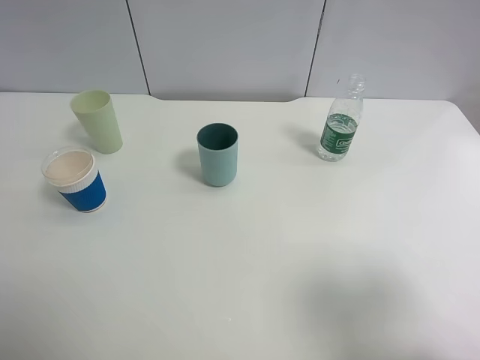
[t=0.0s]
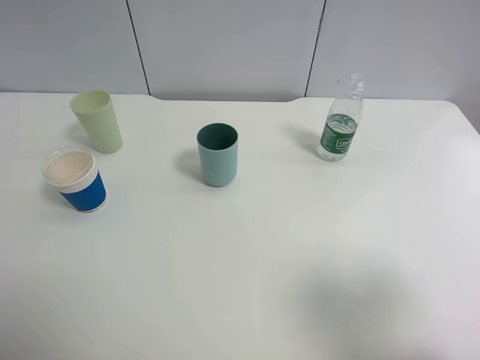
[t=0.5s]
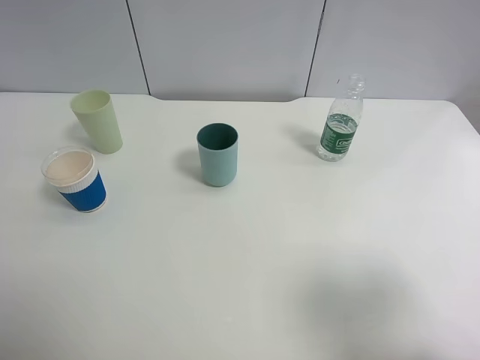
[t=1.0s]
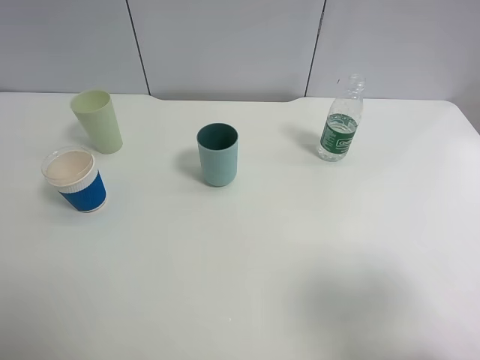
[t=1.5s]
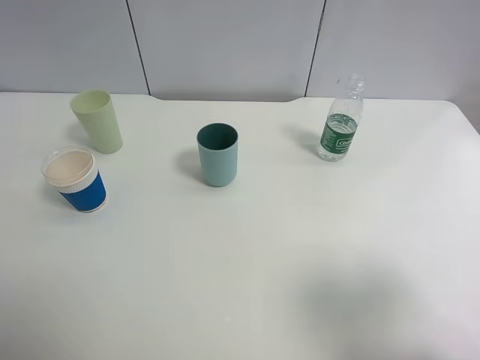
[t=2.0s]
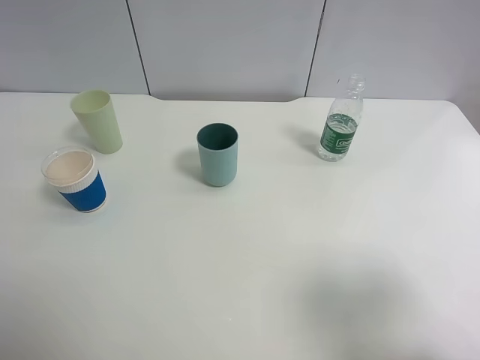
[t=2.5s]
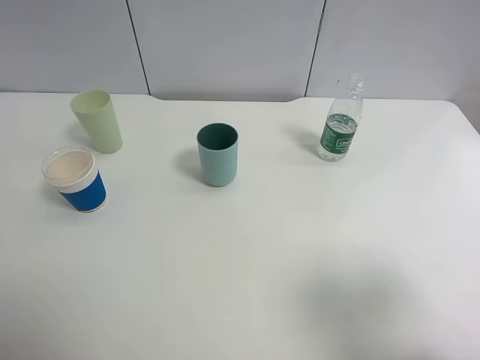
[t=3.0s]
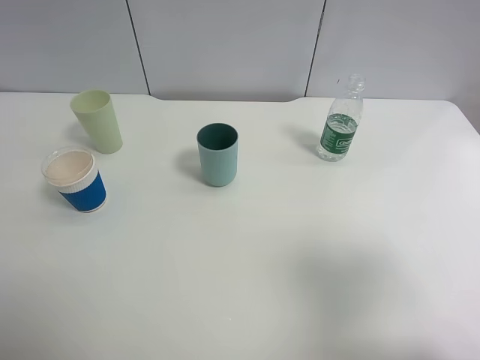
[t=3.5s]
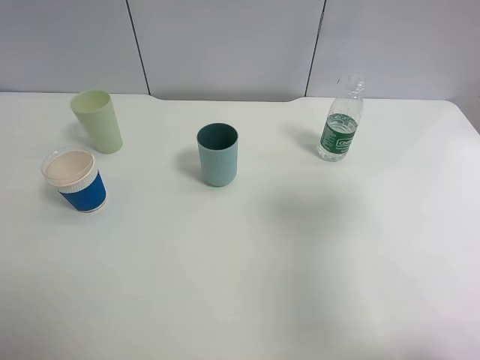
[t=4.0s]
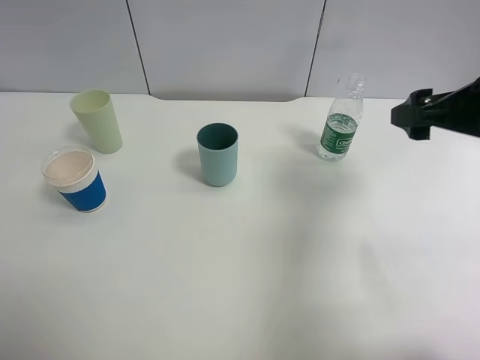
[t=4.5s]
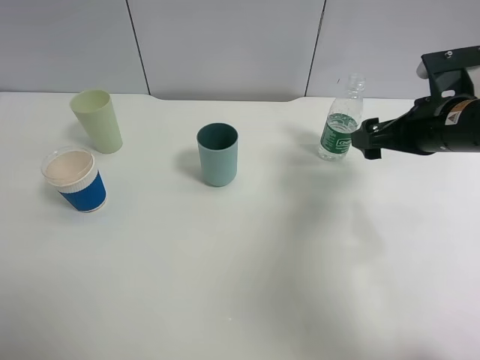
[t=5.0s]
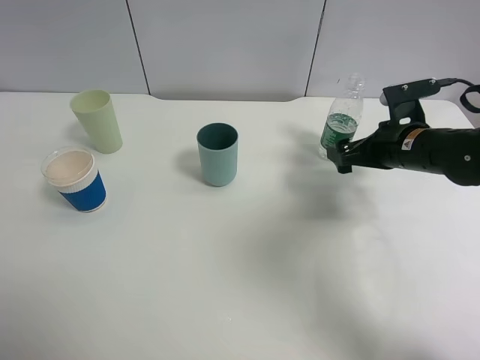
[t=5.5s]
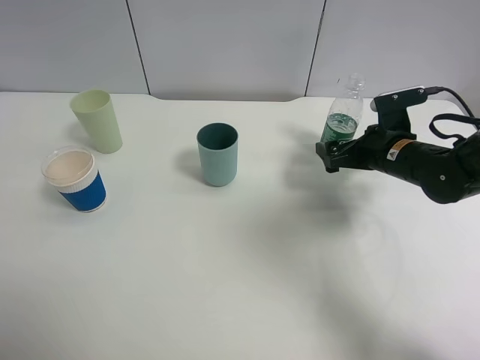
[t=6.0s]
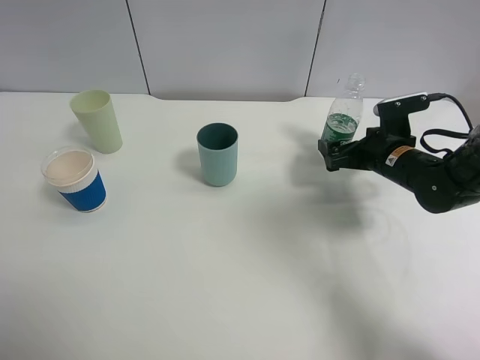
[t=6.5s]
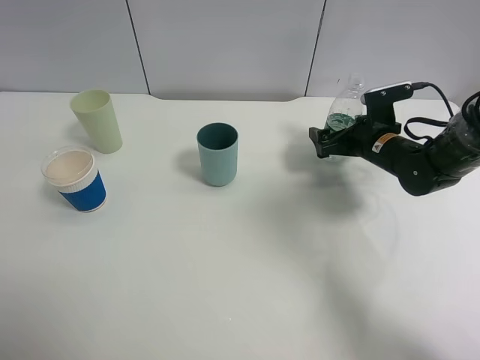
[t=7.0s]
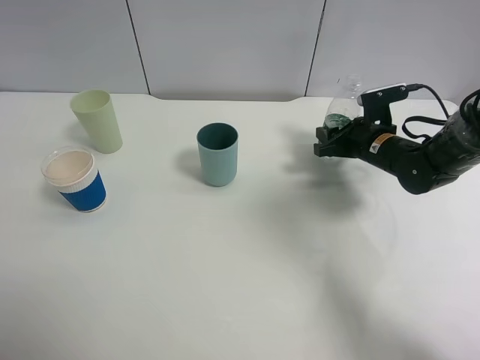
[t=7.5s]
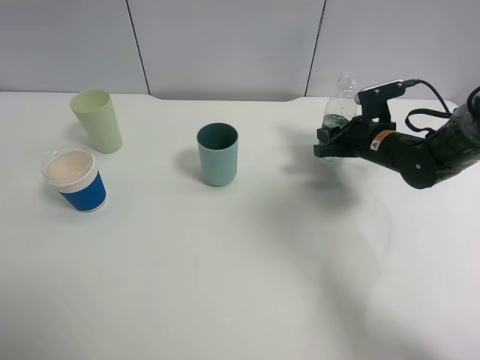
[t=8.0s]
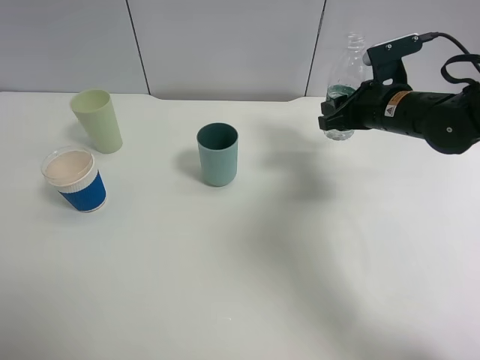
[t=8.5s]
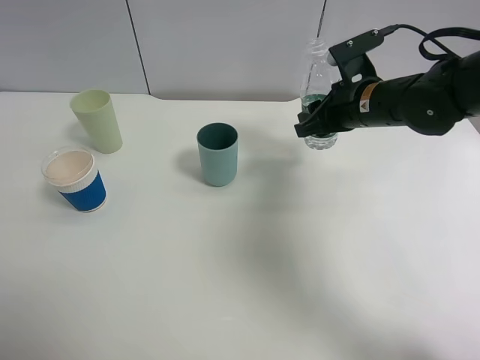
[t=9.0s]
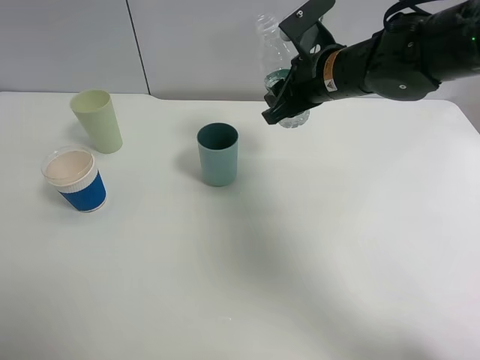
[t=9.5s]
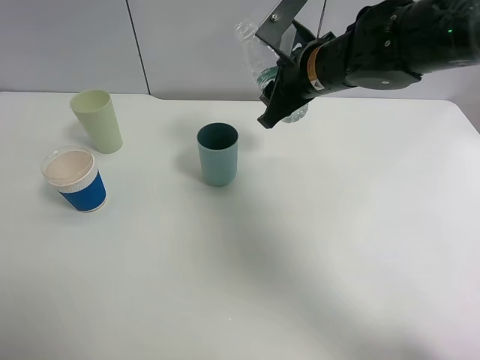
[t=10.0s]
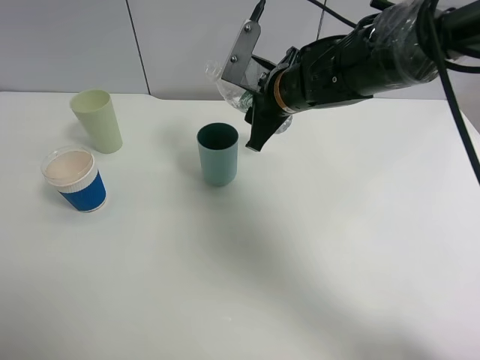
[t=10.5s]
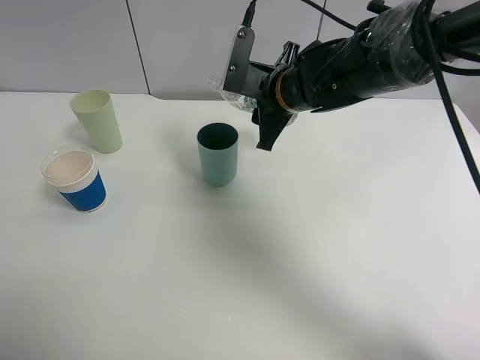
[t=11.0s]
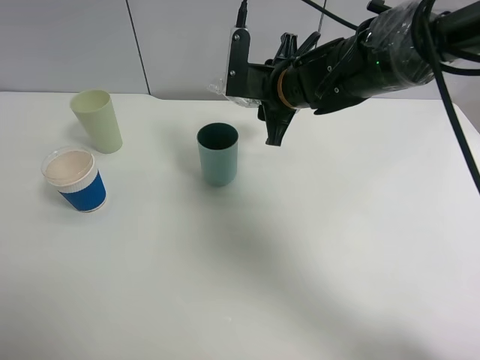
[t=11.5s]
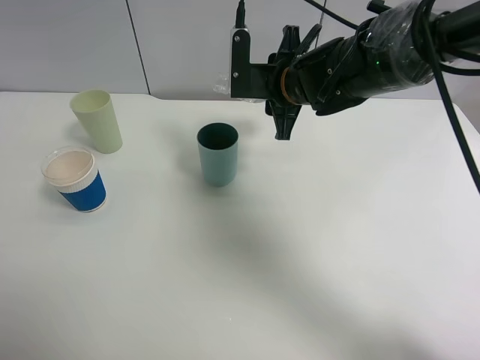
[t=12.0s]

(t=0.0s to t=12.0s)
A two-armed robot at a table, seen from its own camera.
Task of the whole recording: use a clamp to hold the bottle of the drink, pour the beverage into a random cup, then clamp the cup containing the drink and pour the drink into another random cup.
Step, t=0.0s - t=8.0s: Pick up the water bottle with right gripper.
t=0.0s - t=2.0s: Both grippers stay about where they are.
t=2.0s - t=4.0s: The right gripper heads forward, covering approximately 15 cm.
t=4.0s - t=6.0s: The right gripper shifts approximately 30 cm downward and forward.
t=6.0s - t=8.0s: The right gripper changes place by roughly 5 cm, and closes up.
t=8.0s - t=10.0s: The right gripper shifts some 20 cm to the left and upward.

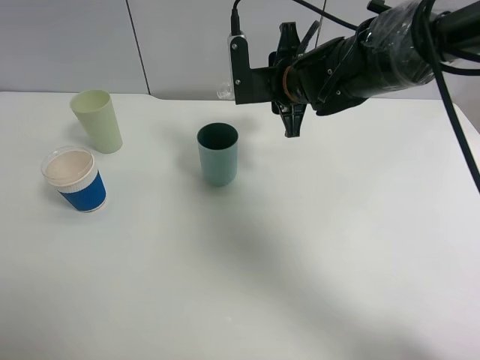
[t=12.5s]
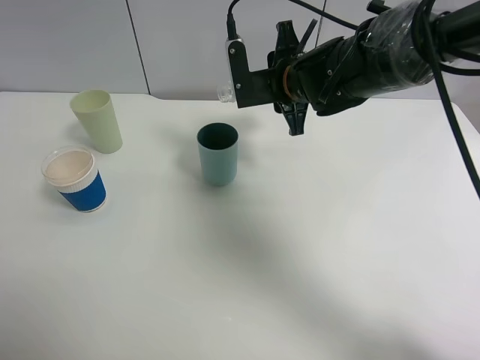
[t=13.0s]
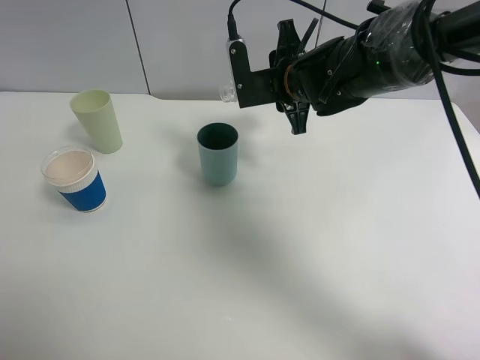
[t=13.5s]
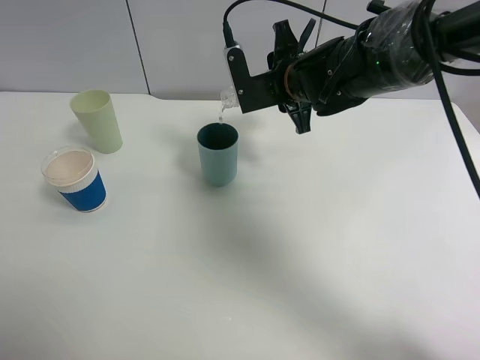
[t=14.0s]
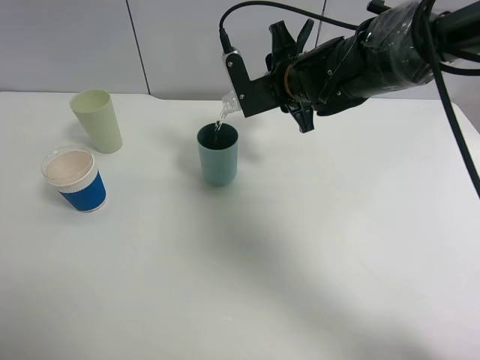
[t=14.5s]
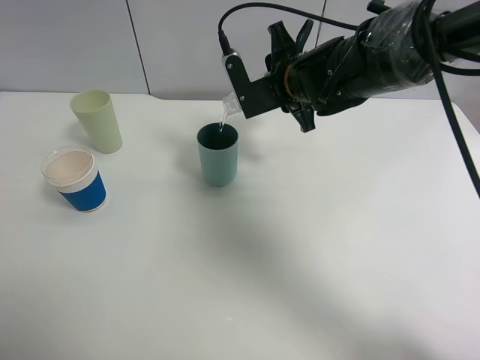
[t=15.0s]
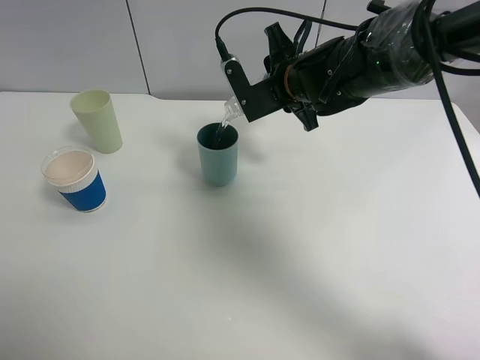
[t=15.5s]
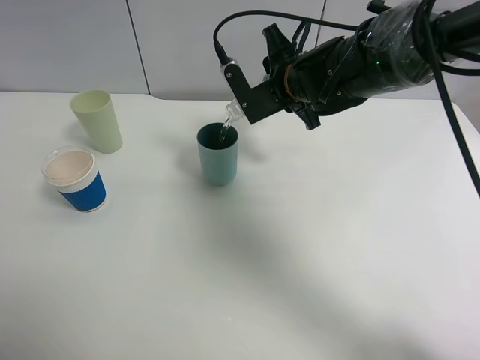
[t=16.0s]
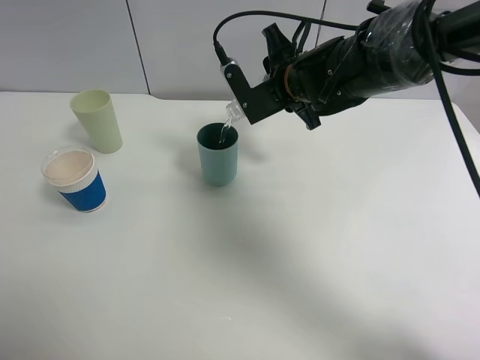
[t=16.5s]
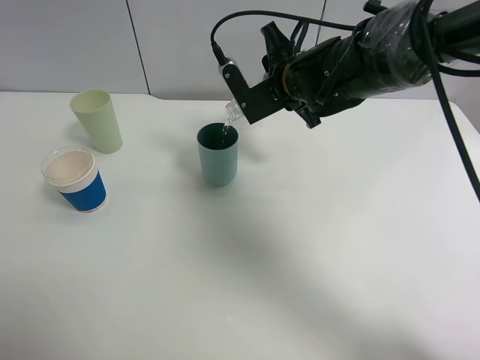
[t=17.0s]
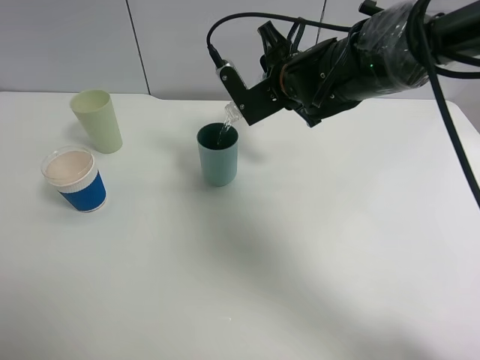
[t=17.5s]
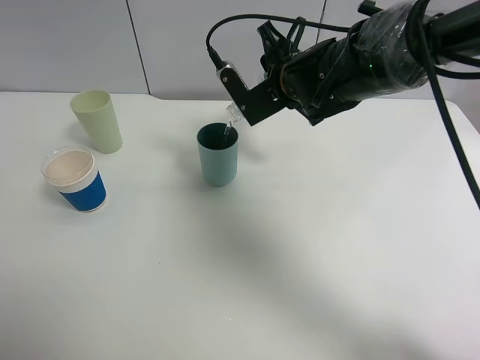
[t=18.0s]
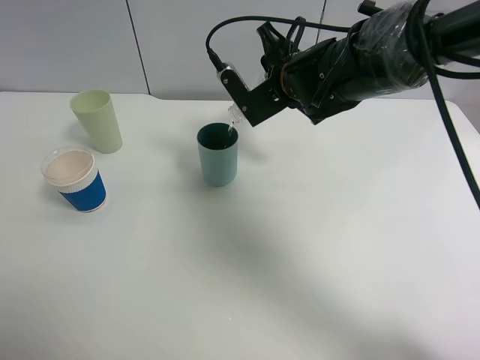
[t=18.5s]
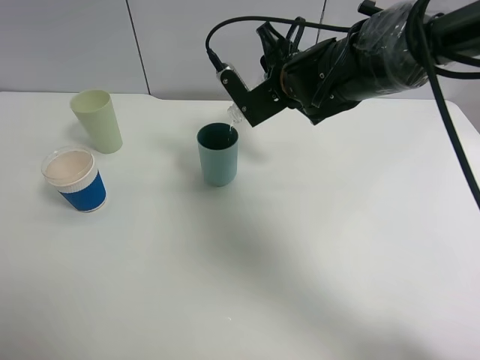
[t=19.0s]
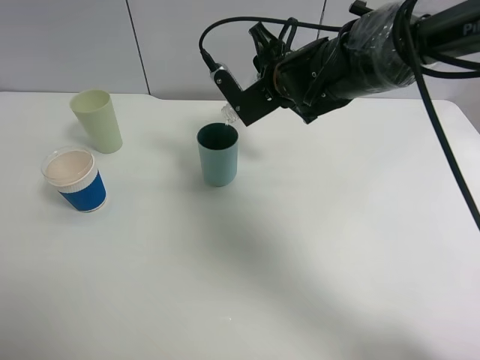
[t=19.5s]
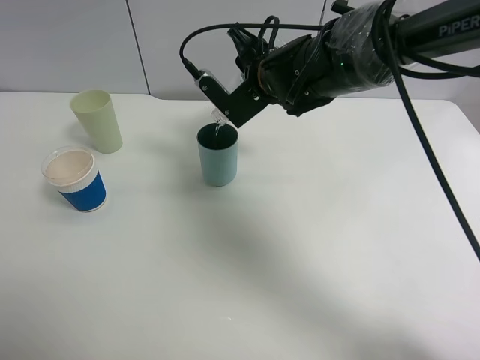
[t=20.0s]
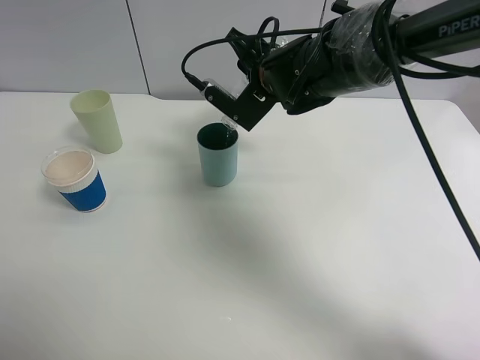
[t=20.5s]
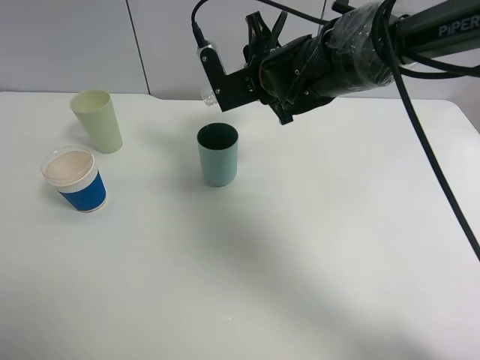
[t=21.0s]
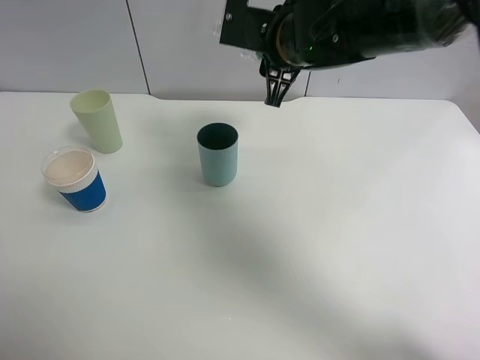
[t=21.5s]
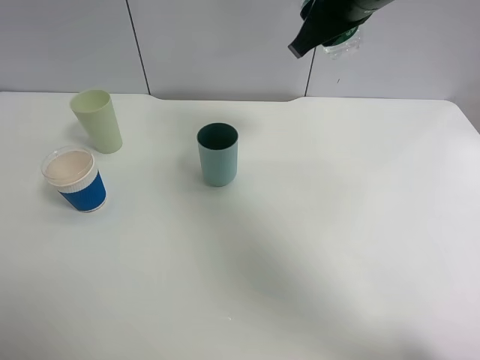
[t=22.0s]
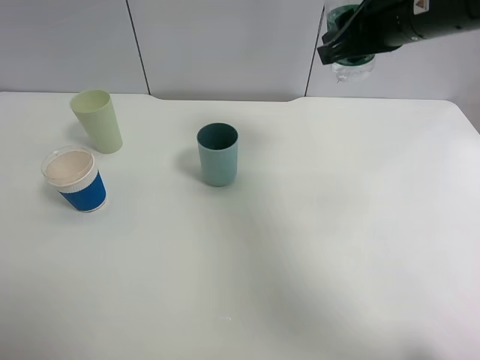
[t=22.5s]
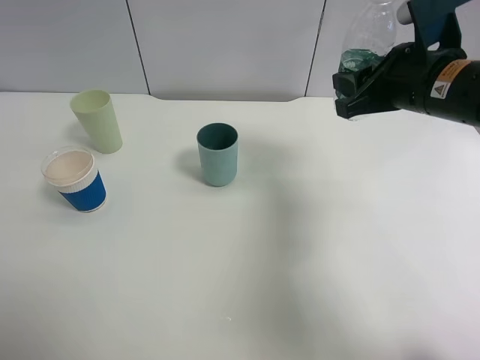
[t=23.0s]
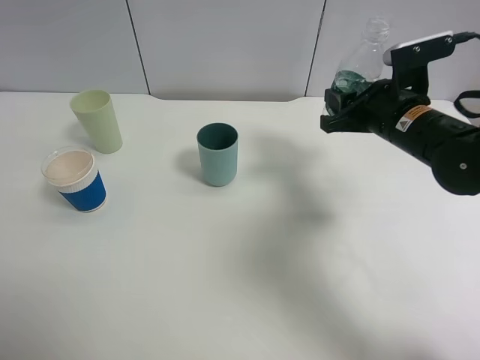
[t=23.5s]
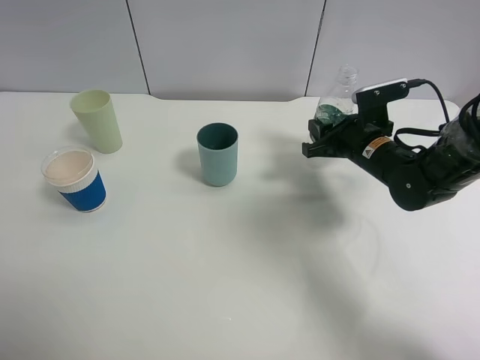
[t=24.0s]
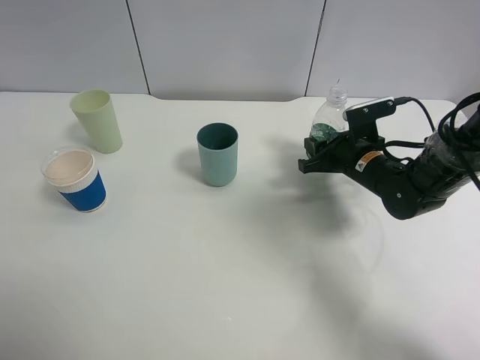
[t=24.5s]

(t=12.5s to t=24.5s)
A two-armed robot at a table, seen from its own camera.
Task of the whole recording: use a clamp to hold the bottle of the drink, pour the beverage into a random cup, then clamp the cup containing the drink and pour the drink into another random cup.
Step, t=12.5s - t=21.5s: Pour water into the blue plastic cup with right gripper.
t=12.5s - t=14.5s: The grippers stay close to where they were, moving slightly.
t=14.5s - t=18.5s: There are only small adjustments of the grippers.
t=18.5s - t=20.5s: The grippers make only small movements.
t=20.5s - t=22.5s: The right gripper is displaced to the right, upward and backward by roughly 20 cm.
t=22.5s - t=24.5s: The right gripper travels downward by roughly 25 cm.

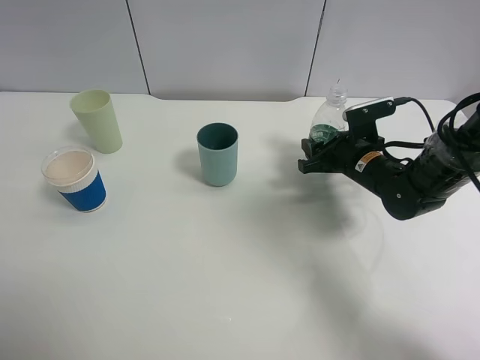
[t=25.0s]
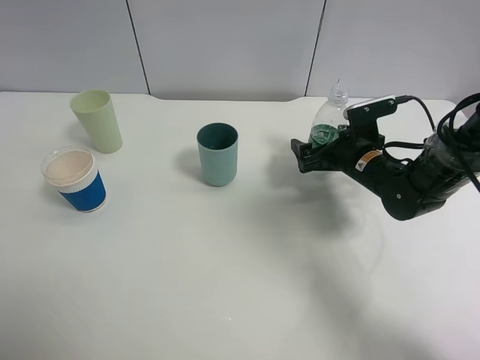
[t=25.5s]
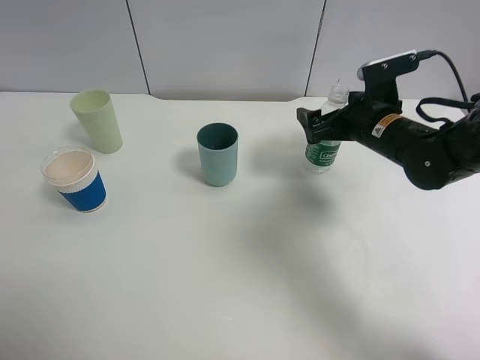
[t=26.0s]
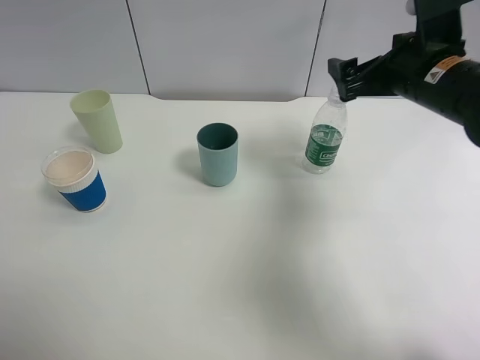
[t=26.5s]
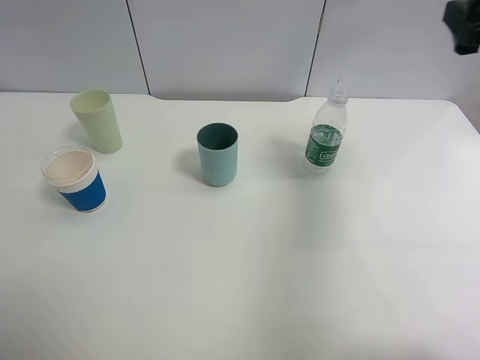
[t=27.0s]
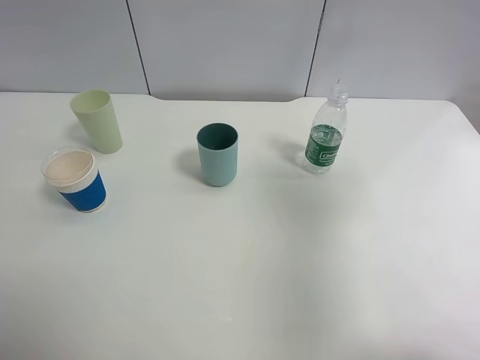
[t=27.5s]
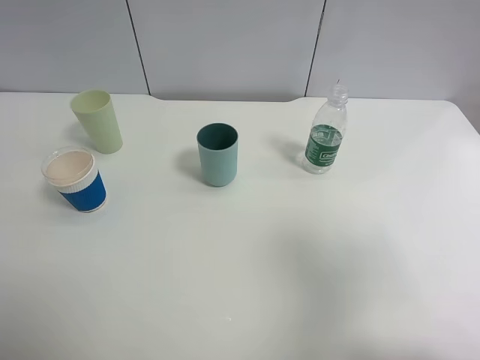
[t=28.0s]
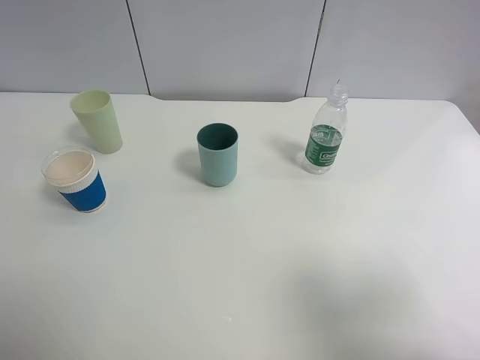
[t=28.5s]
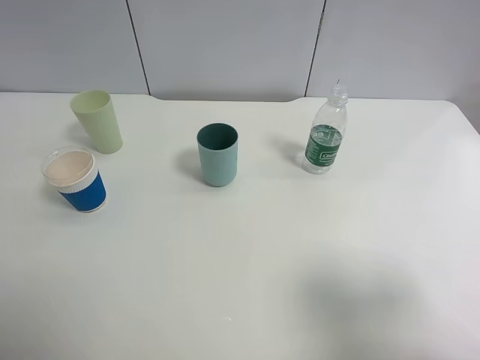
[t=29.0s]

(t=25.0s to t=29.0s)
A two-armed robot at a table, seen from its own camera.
Task of the whole recording: use a clamp to hold the bottle of the drink, pour the beverage into a random cup, then clamp the cup containing the drink and pour the drink into another random cup.
t=25.0s - t=27.0s: The right gripper is displaced upward by about 25 cm, and opens up.
t=27.0s - t=29.0s: The right gripper heads backward, covering some 25 cm.
